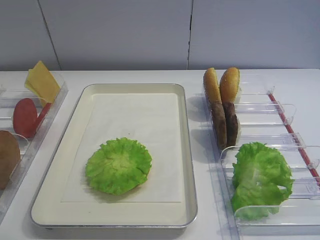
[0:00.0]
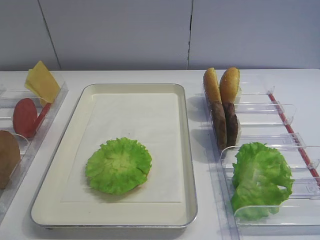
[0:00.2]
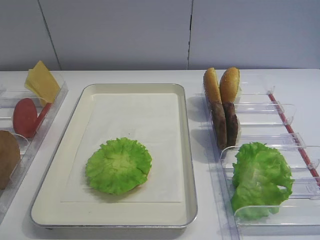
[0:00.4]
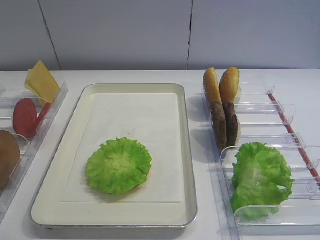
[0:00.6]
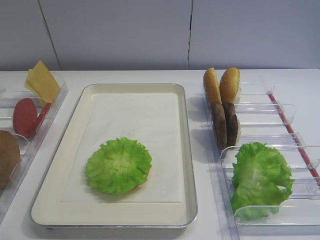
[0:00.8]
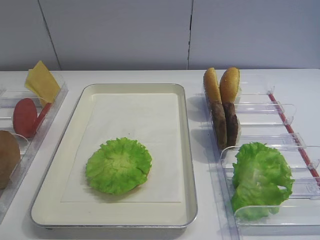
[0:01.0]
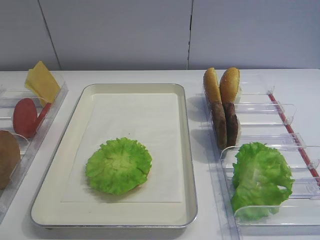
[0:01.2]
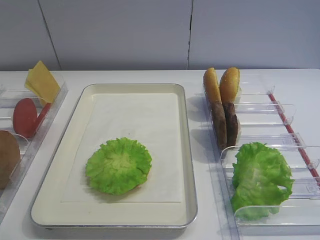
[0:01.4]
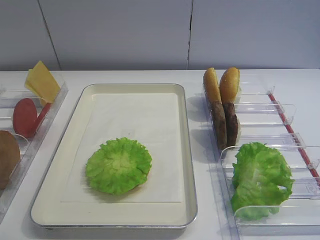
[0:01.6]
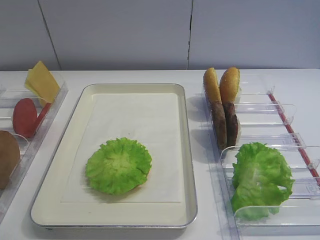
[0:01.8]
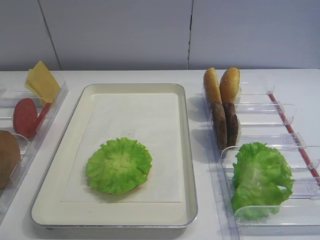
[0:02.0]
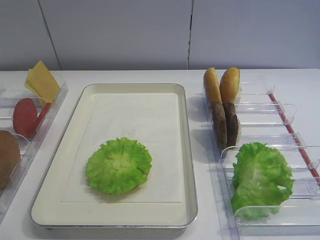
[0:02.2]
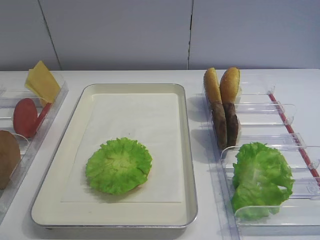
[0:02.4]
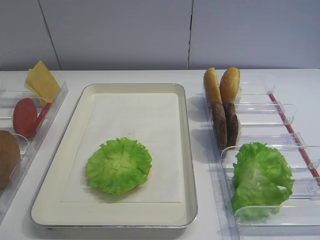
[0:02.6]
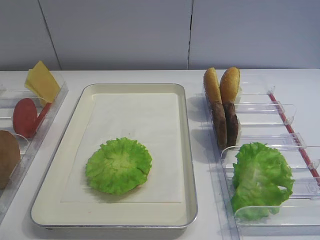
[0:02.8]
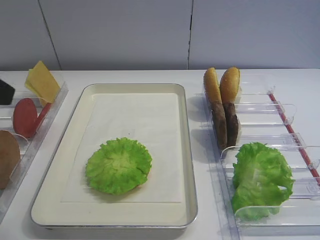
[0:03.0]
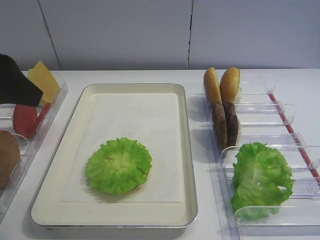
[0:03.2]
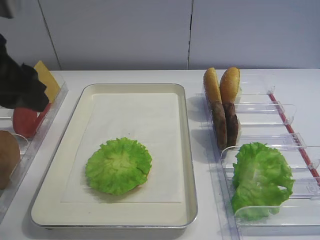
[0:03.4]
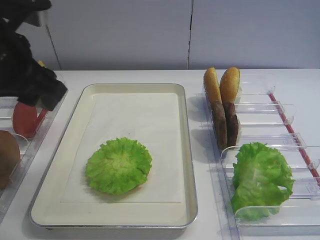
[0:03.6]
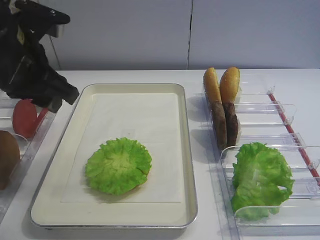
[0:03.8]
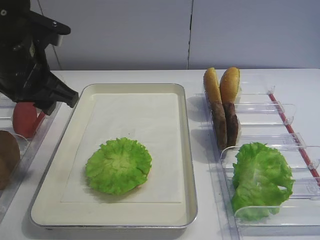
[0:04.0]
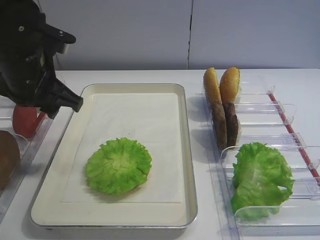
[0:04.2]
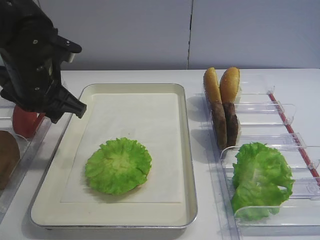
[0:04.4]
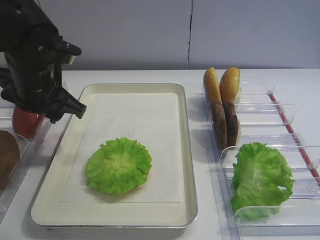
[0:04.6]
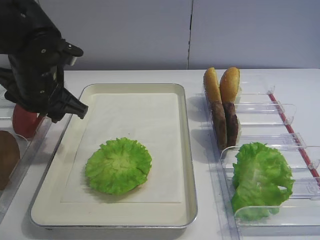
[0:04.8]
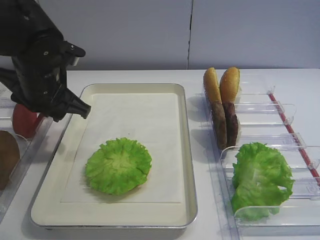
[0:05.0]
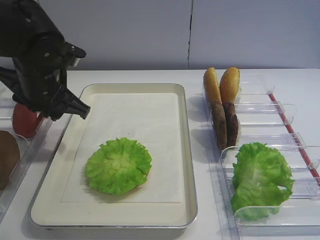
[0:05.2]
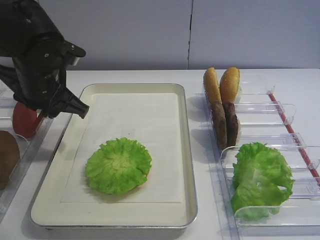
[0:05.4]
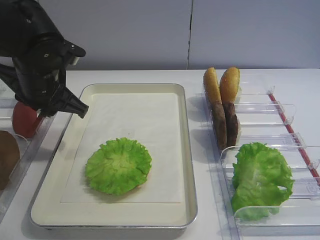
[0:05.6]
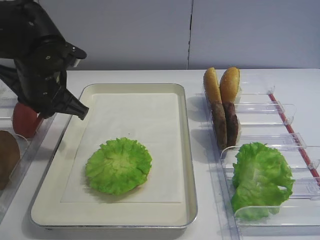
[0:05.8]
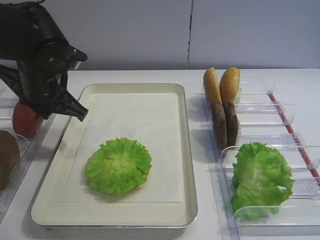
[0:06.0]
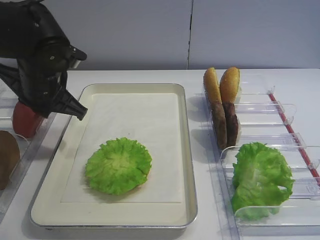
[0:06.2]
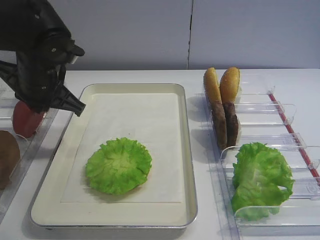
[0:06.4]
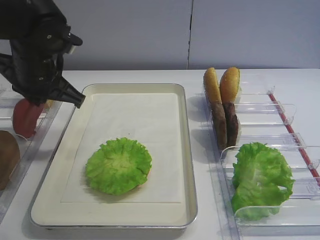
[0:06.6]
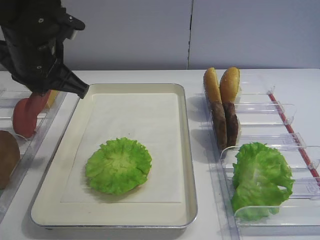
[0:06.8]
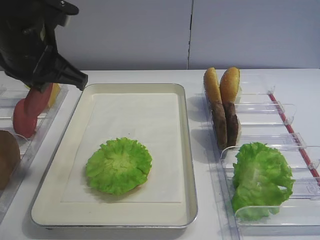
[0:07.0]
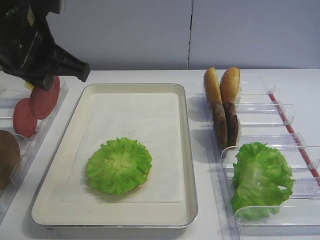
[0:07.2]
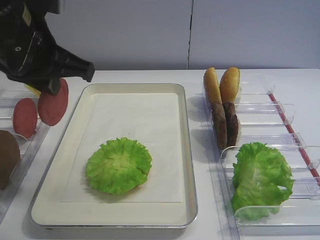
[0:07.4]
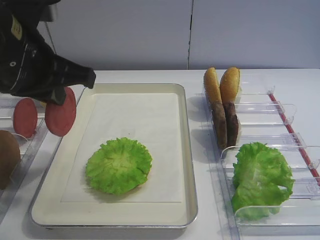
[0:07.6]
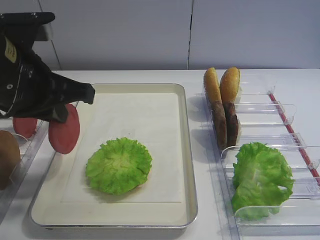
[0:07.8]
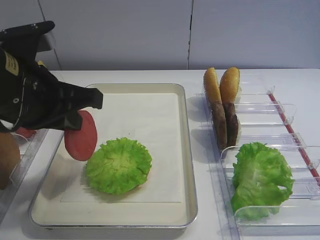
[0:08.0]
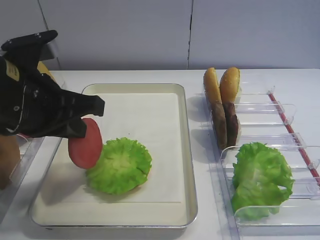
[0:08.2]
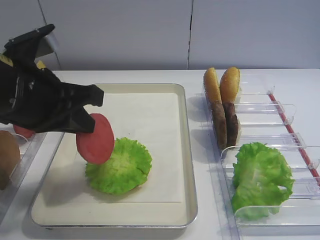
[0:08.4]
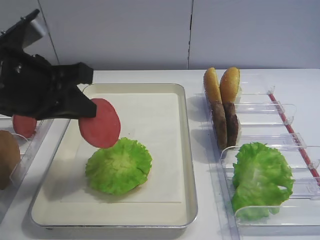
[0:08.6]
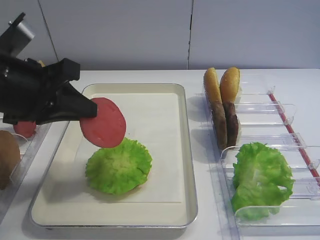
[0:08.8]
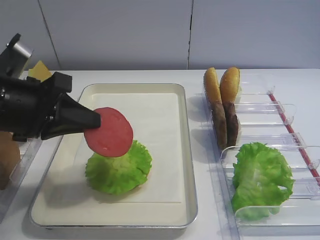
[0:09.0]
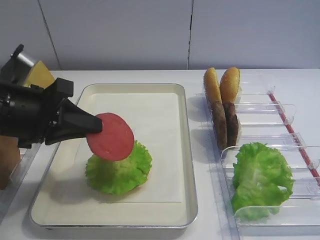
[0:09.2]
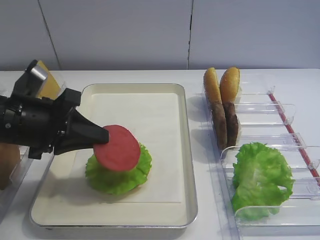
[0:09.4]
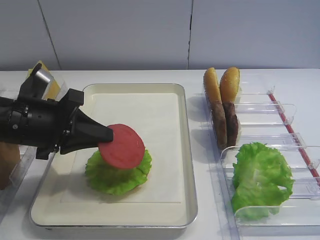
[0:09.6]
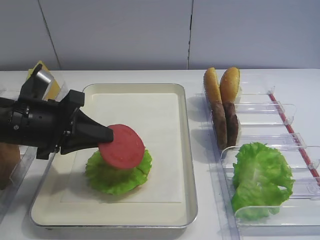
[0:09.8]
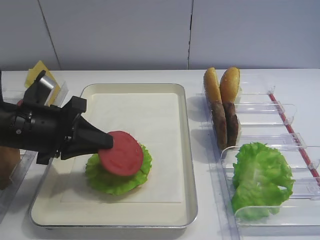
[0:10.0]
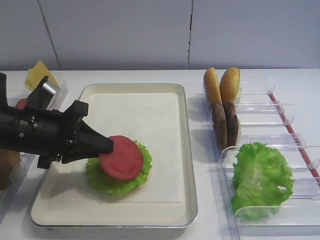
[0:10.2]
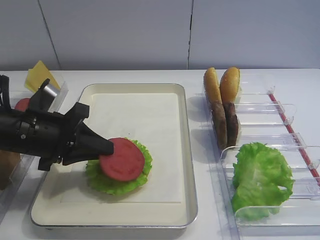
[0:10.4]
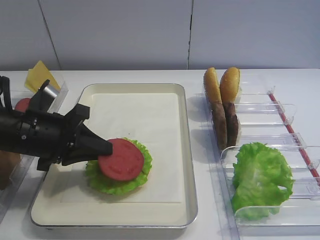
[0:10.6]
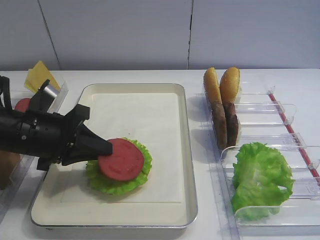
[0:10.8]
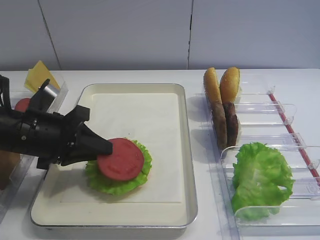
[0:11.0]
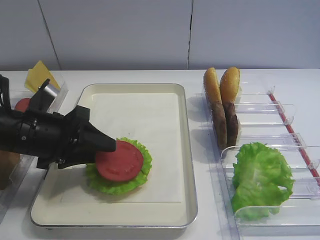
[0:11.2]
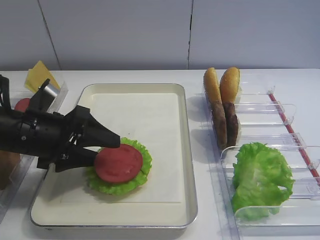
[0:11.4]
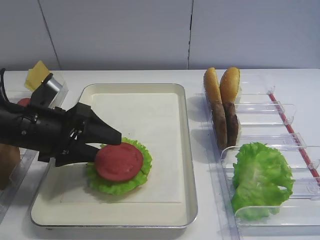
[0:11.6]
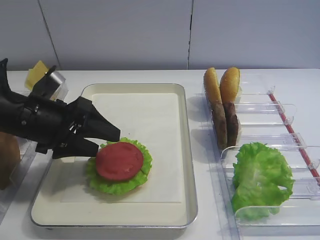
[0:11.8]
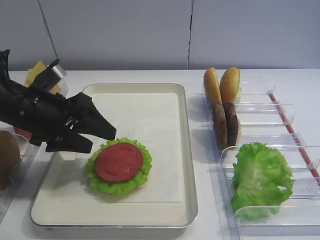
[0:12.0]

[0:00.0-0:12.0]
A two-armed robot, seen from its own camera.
Step, 0:00.0 to 0:07.0: Pick up the tomato slice with the left gripper.
Step, 0:07.4 to 0:11.8: Place the tomato slice on the lettuce leaf with the left gripper.
0:03.0 to 0:04.4: The left gripper heads forward, downward and to the right, covering about 20 cm.
0:04.4 to 0:06.0: The left gripper closes up.
0:06.0 to 0:07.6: The left gripper goes approximately 15 cm upward and backward.
0:07.6 to 0:09.0: The left gripper moves downward, some 5 cm.
0:09.0 to 0:10.4: The left gripper travels downward by about 5 cm.
0:10.4 to 0:12.0: The left gripper opens its fingers.

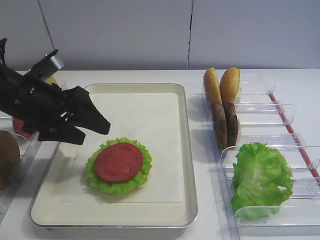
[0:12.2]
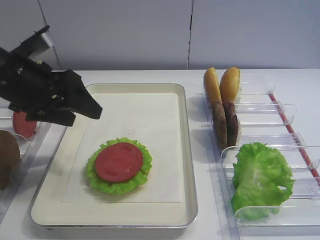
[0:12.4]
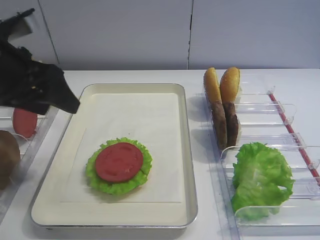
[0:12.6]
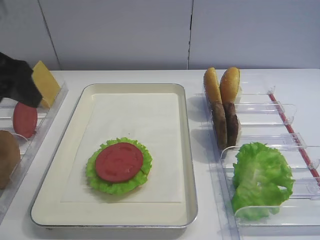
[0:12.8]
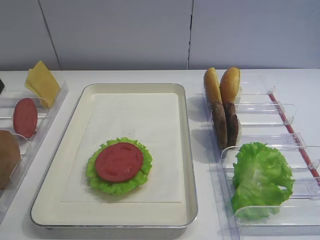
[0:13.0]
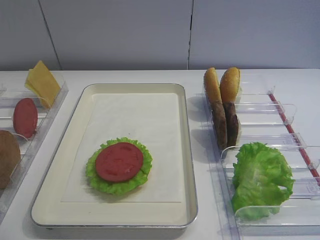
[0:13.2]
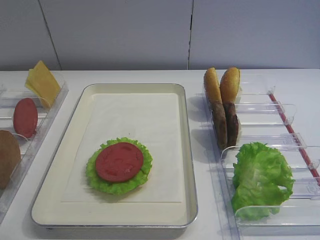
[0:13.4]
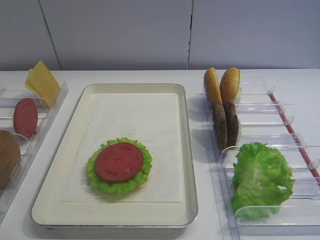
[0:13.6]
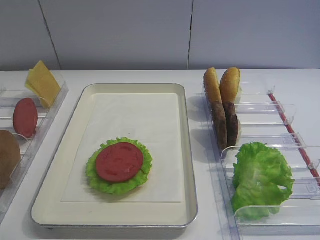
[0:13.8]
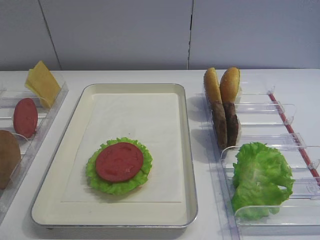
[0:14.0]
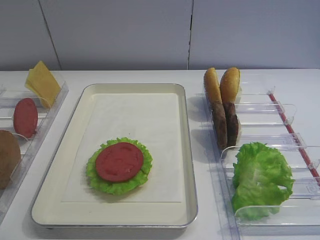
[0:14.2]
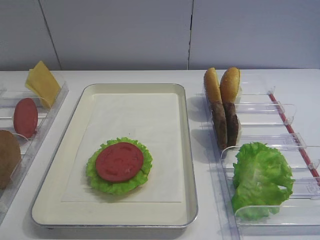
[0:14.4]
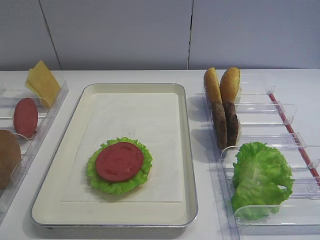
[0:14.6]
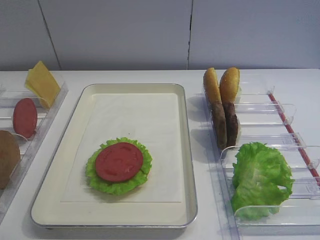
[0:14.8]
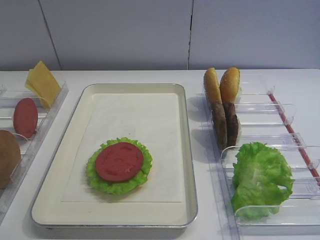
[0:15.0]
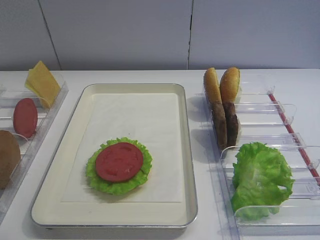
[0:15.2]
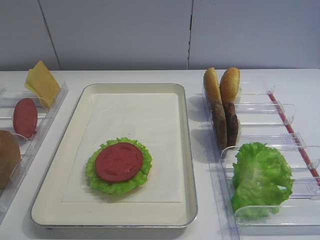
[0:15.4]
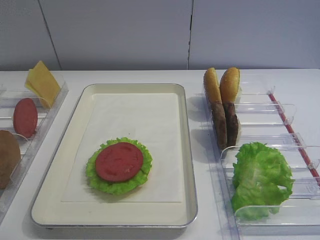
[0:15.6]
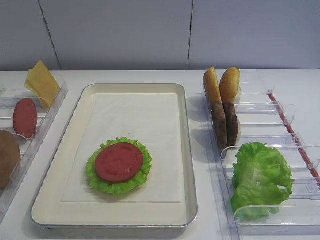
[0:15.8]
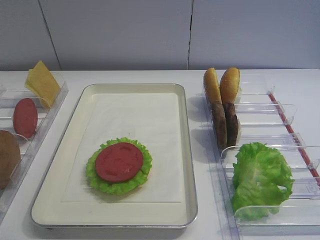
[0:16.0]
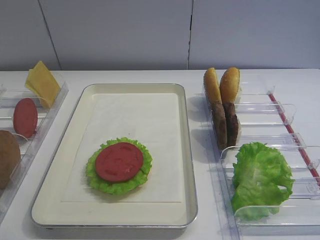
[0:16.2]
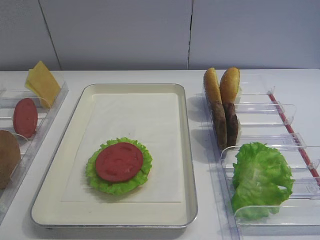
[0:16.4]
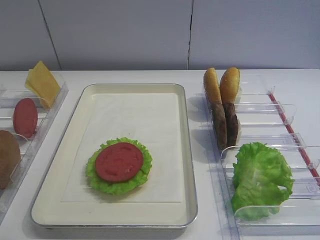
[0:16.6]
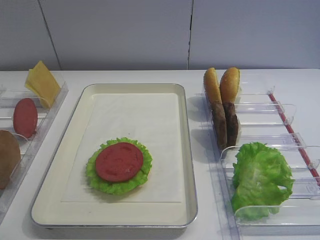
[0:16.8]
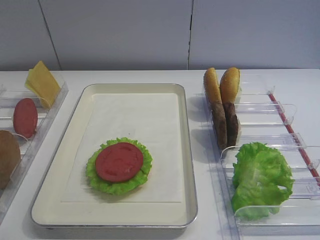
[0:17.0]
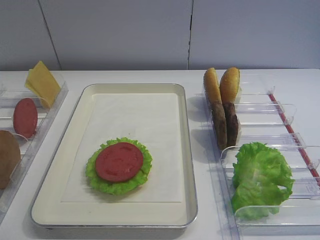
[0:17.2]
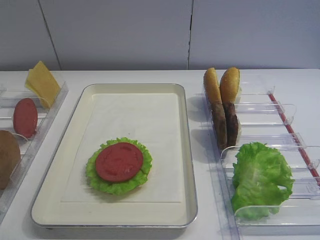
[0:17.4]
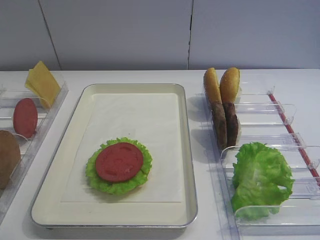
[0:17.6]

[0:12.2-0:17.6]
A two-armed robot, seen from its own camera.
0:12.2 to 0:13.6: The left gripper moves backward, upward and to the left, about 25 cm.
0:15.0 to 0:17.6: Both grippers stay about where they are.

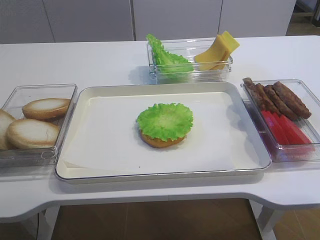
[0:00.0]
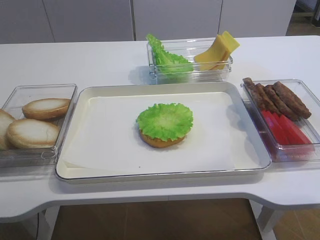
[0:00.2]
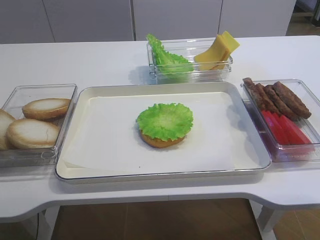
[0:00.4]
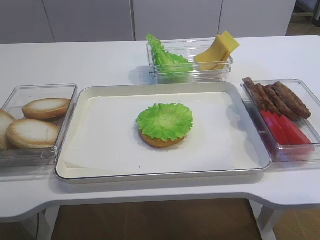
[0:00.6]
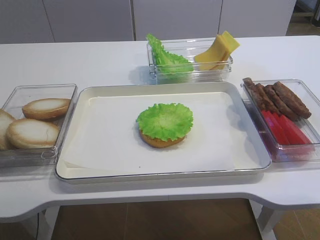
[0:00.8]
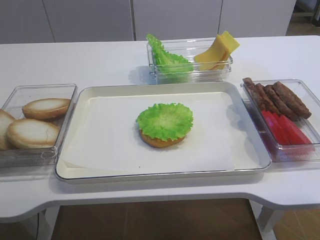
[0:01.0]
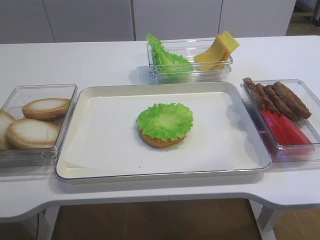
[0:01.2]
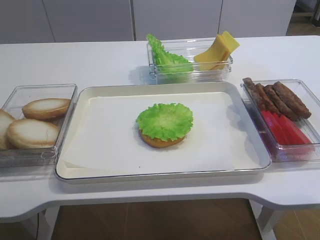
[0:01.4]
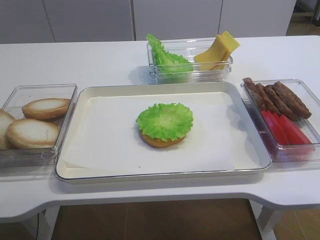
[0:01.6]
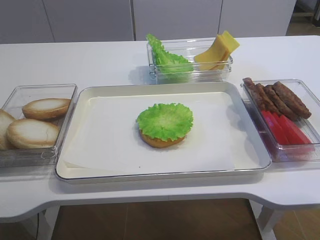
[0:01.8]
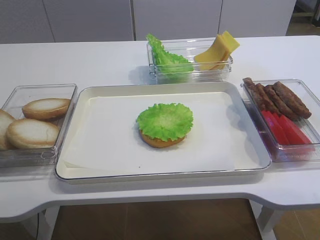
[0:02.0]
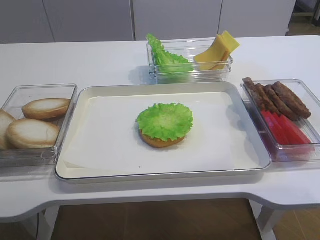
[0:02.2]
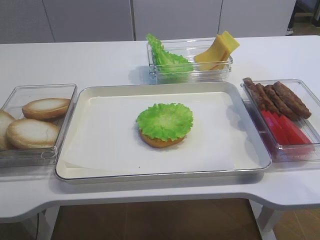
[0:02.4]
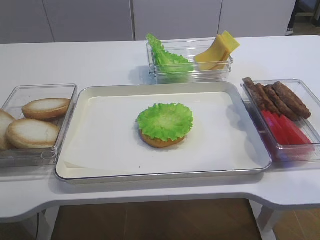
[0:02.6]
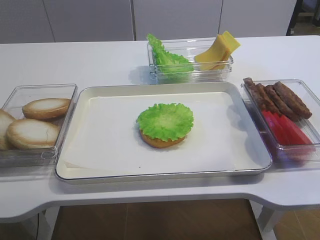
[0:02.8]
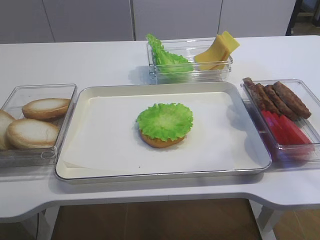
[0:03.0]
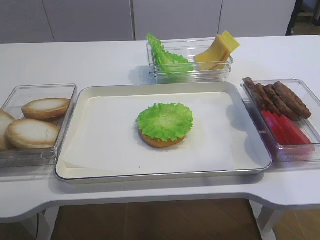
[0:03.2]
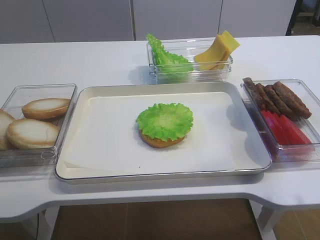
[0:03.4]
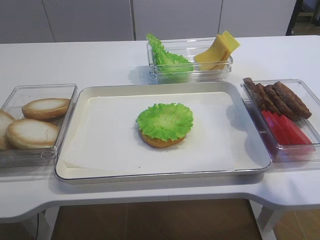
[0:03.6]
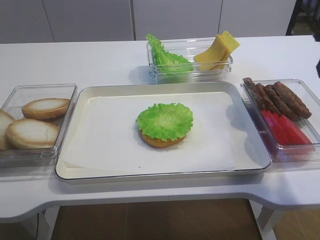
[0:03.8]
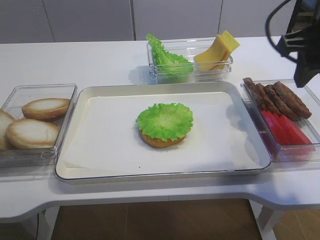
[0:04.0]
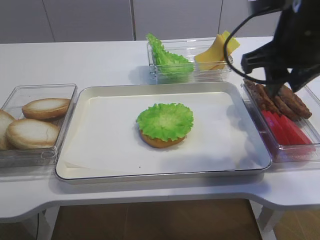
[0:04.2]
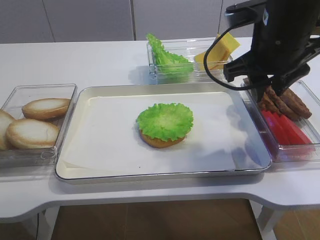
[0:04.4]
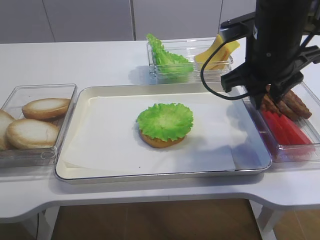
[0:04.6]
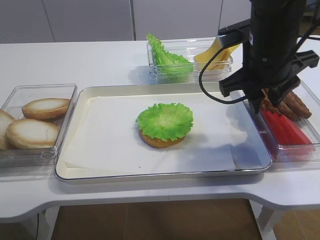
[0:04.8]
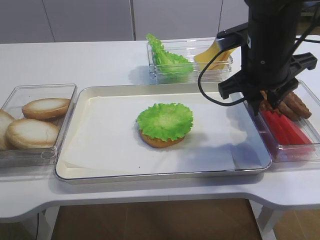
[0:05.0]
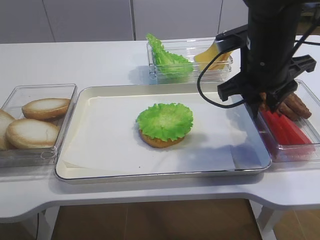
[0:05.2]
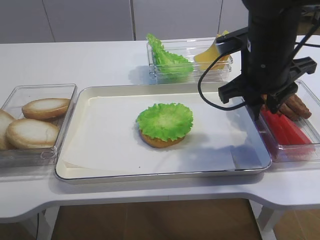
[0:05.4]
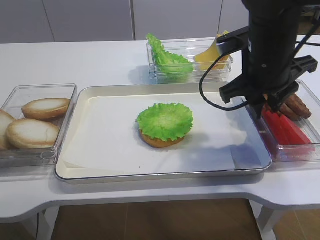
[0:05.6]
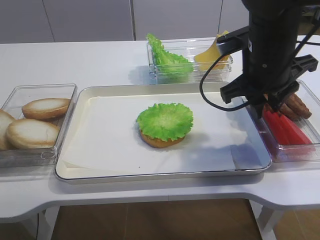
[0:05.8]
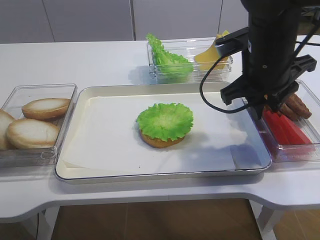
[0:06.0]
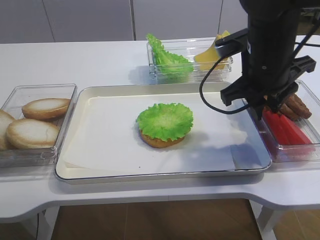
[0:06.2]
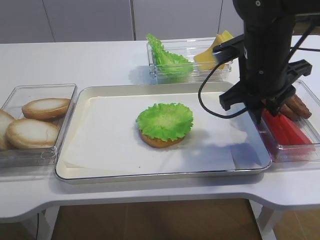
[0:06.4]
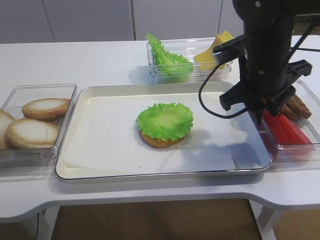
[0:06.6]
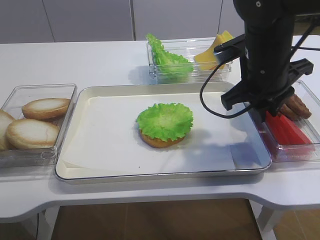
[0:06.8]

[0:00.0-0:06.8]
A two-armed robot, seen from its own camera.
0:01.4 to 0:02.8: The right gripper goes roughly 10 cm forward.
0:02.8 to 0:04.0: The right gripper moves forward, approximately 20 cm.
0:04.0 to 0:05.4: The right gripper heads downward and to the left, covering some 10 cm.
0:05.4 to 0:06.8: The grippers move only a little.
